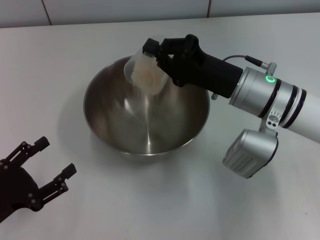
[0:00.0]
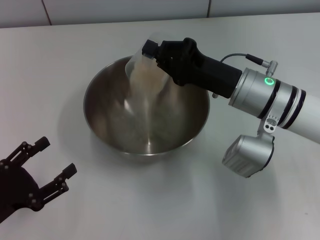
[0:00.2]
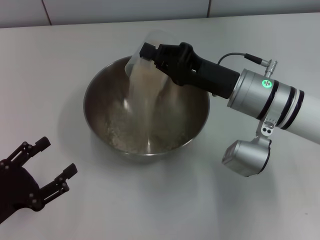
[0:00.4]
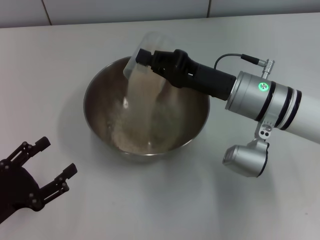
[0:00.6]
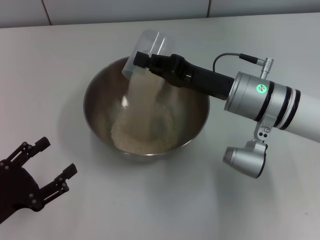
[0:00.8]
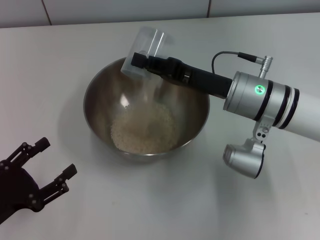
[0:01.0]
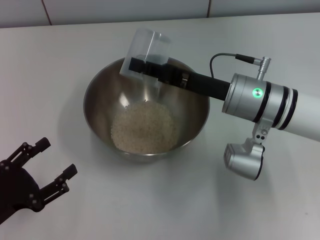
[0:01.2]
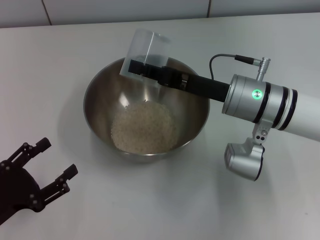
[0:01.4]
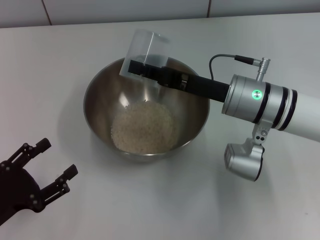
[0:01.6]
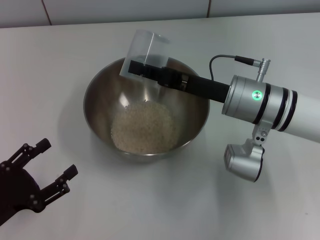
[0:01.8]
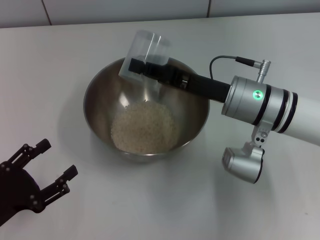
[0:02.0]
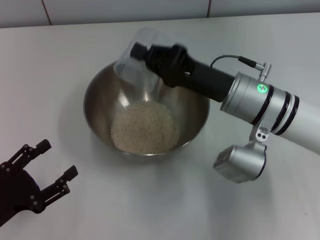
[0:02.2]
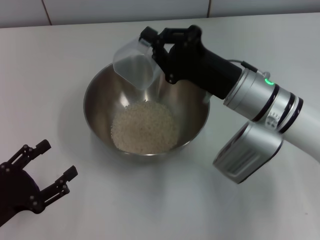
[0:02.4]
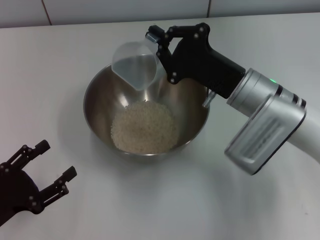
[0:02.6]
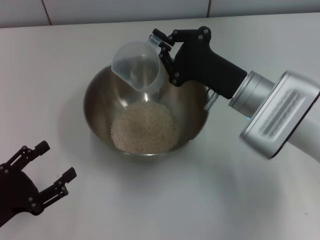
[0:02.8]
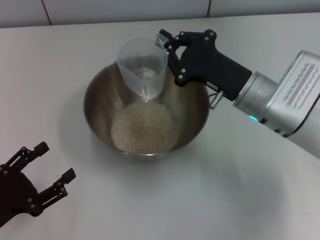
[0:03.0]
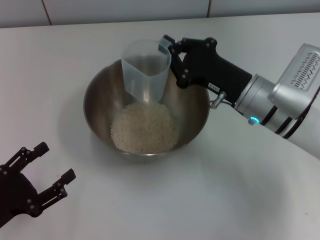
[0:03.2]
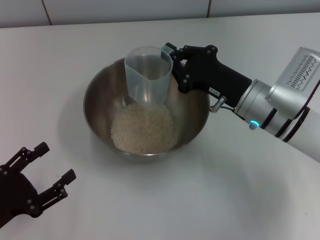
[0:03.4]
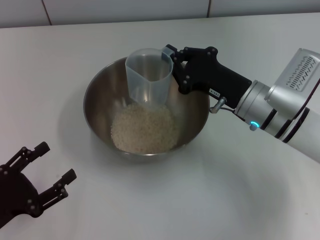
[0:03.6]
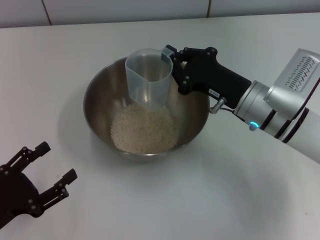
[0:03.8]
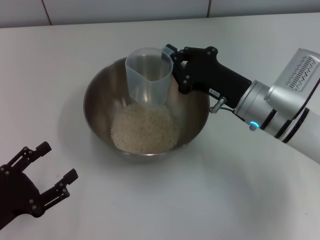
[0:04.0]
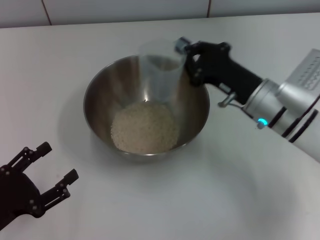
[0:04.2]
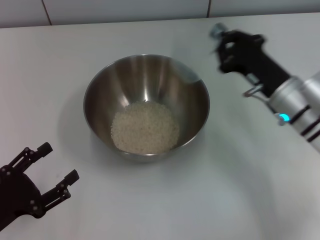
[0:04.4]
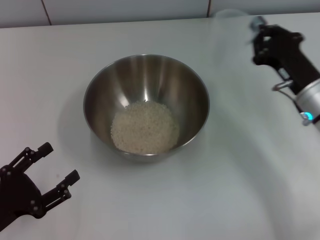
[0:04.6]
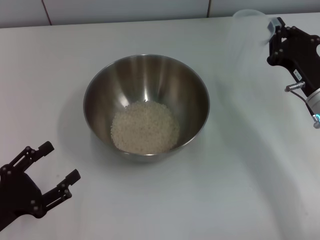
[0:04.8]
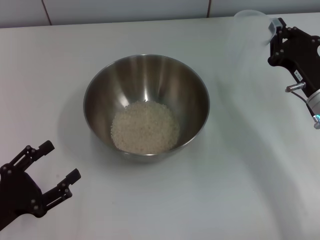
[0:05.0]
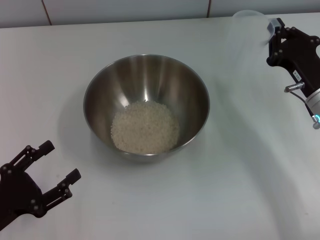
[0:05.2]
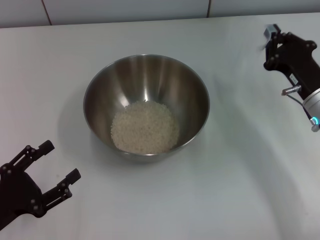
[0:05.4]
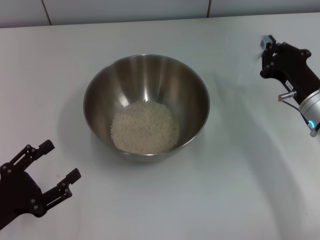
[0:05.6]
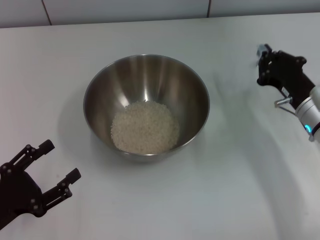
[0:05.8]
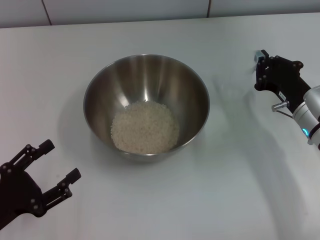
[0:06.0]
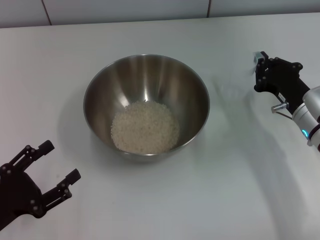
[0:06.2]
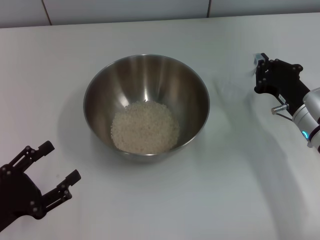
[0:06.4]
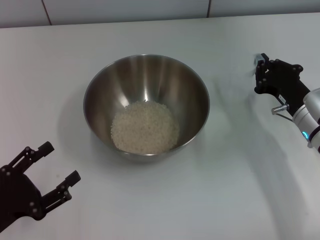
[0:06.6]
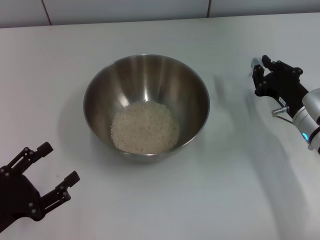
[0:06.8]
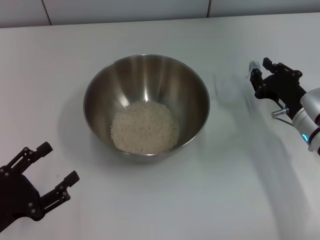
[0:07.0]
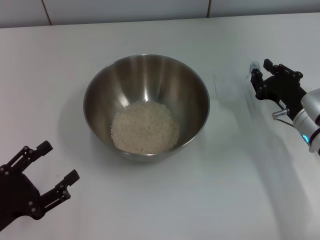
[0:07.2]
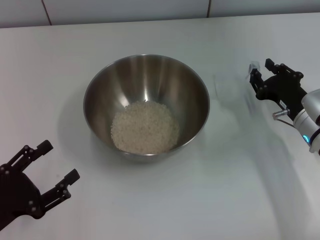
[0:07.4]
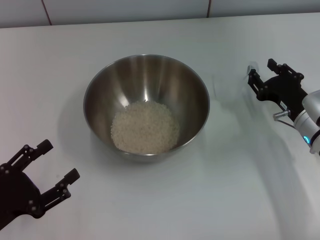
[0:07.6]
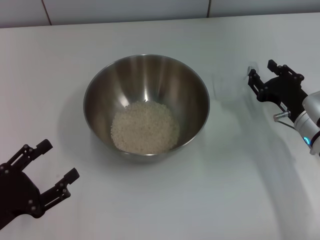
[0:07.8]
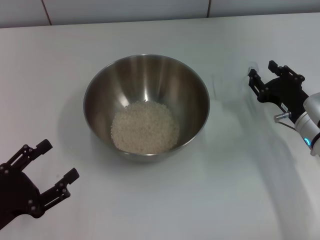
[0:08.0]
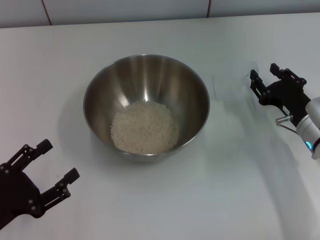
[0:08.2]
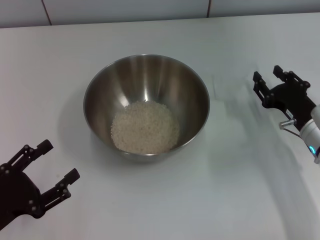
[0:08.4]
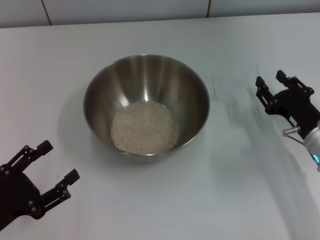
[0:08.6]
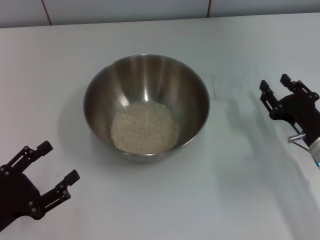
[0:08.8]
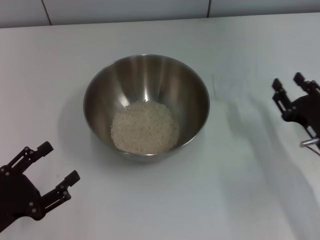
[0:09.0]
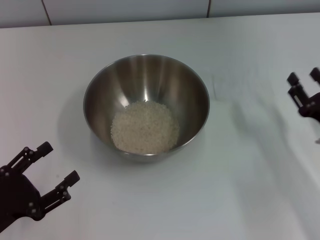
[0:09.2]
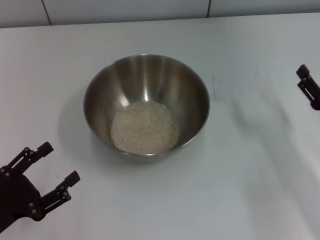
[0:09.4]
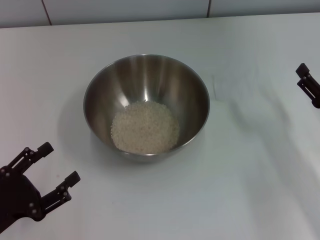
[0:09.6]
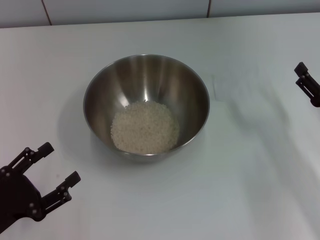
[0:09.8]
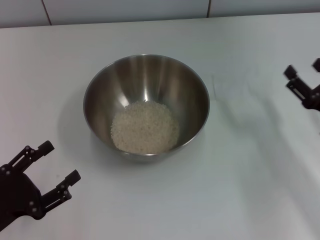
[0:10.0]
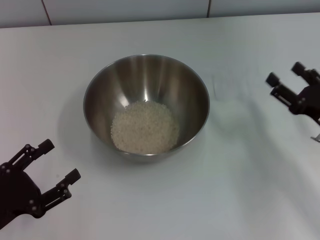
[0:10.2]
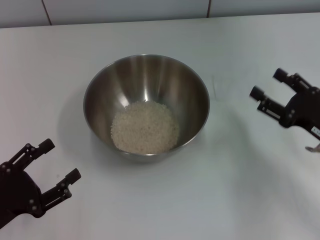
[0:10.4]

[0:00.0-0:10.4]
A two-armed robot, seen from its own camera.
Task of the whole recording: Place the bowl in the middle of the table with one hand and pour the rice from the grain cup into it with the other hand.
Step, 0:00.0 to 0:05.0: Pour the rice from the cup into the bowl with the right gripper.
Step, 0:05.4 to 0:08.4: Place the cup on the table with the right gripper.
0:03.0 to 0:04.4: The right gripper heads to the right, covering approximately 5 cm.
0:04.4 to 0:06.0: The right gripper ends up approximately 5 cm from where it was.
0:06.0 to 0:07.4: The right gripper opens.
0:07.4 to 0:09.0: The right gripper heads backward, covering some 5 cm.

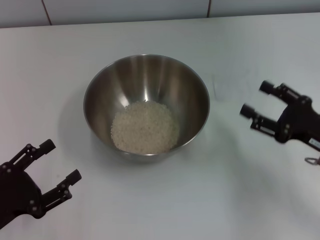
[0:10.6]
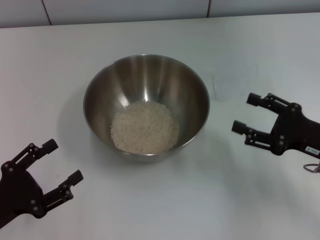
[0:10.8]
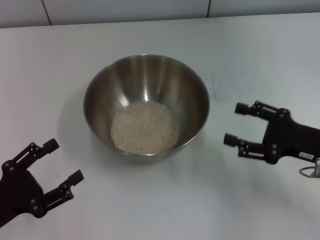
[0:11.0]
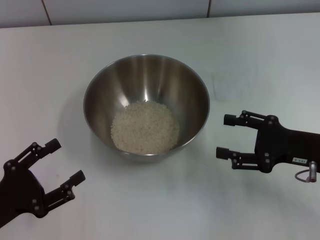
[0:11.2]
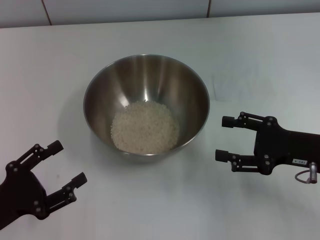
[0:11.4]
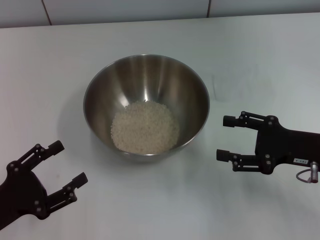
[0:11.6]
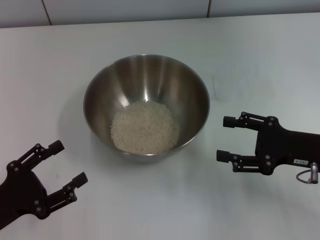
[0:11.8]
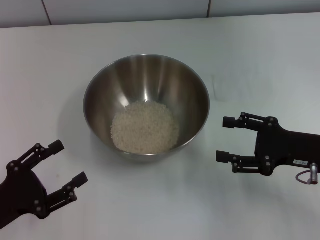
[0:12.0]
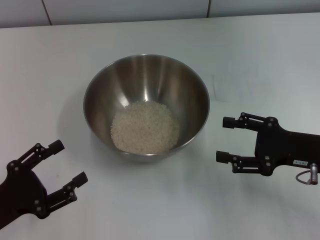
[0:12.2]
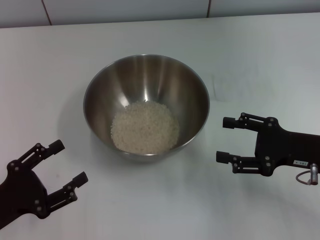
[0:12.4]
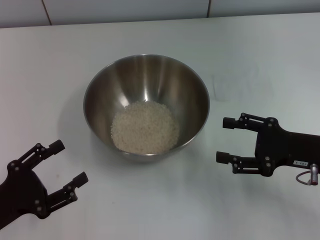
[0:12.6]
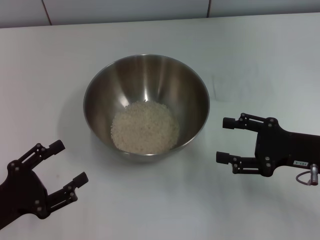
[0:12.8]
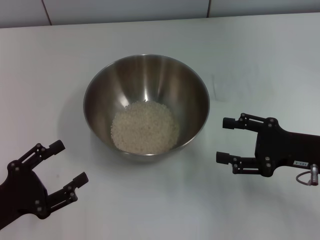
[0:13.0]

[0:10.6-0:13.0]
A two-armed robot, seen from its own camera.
Task of the whole recording: Place the bowl in the middle of the table with one hand and pour the rice from the grain cup into it with the other hand.
0:11.8 to 0:13.0: Neither gripper changes place.
